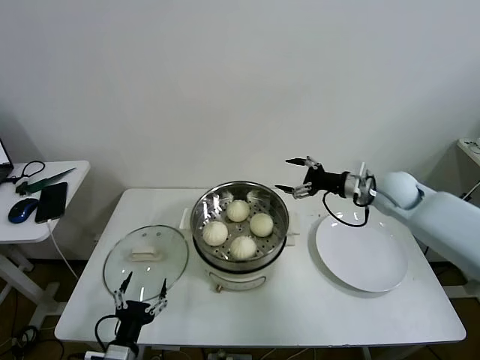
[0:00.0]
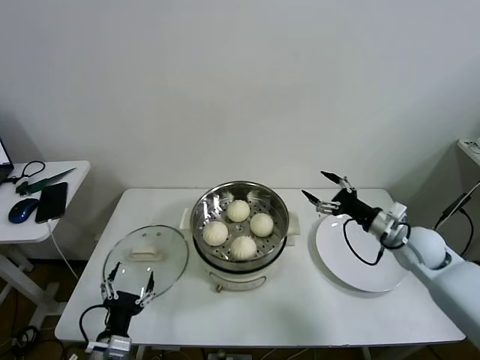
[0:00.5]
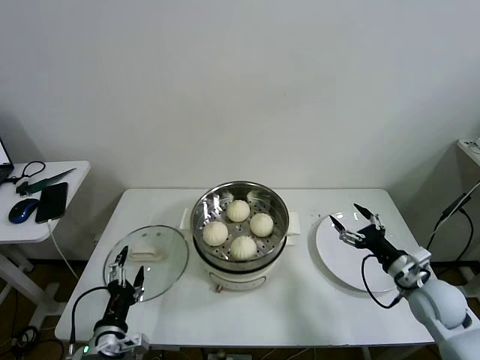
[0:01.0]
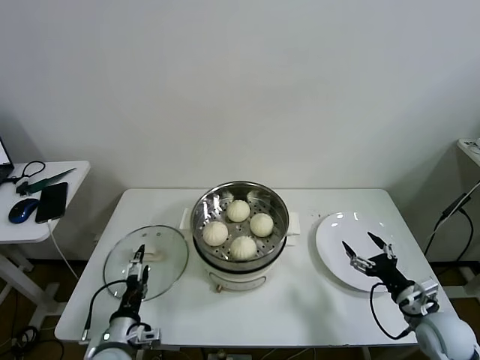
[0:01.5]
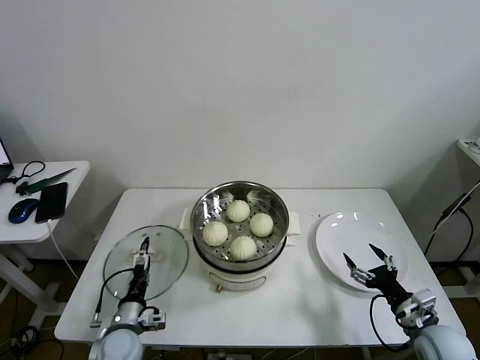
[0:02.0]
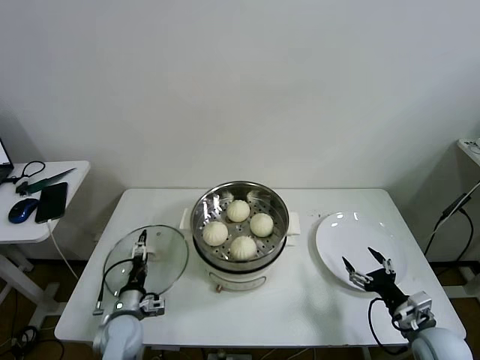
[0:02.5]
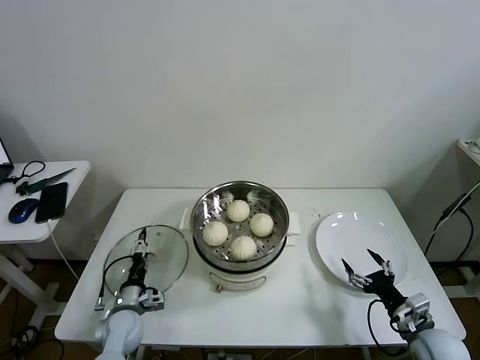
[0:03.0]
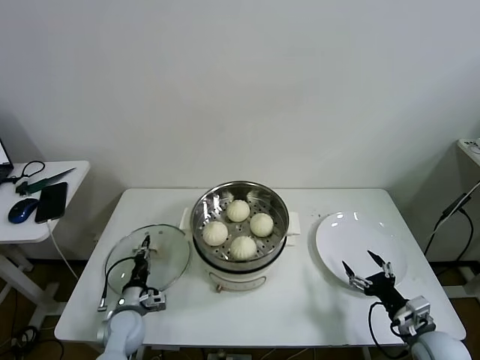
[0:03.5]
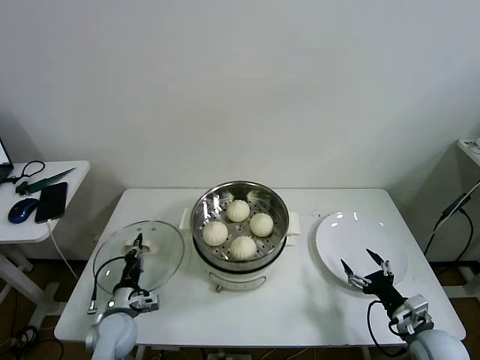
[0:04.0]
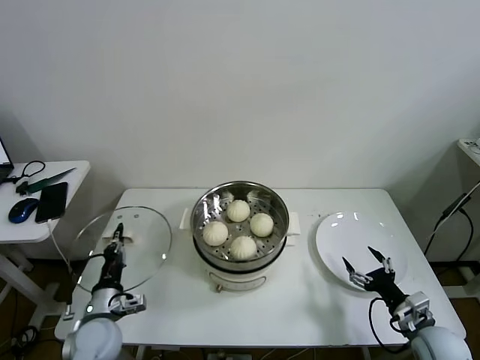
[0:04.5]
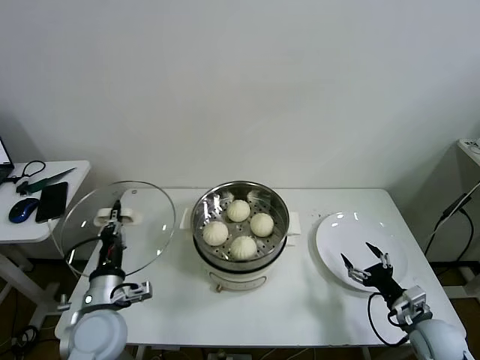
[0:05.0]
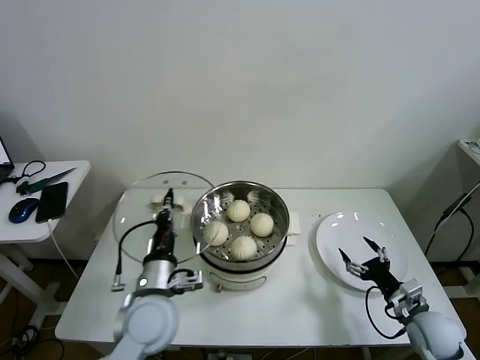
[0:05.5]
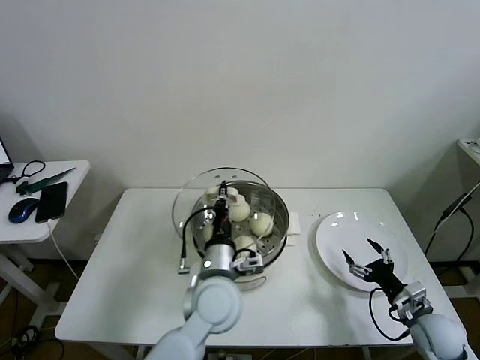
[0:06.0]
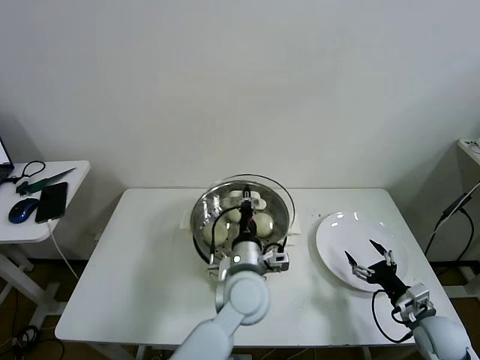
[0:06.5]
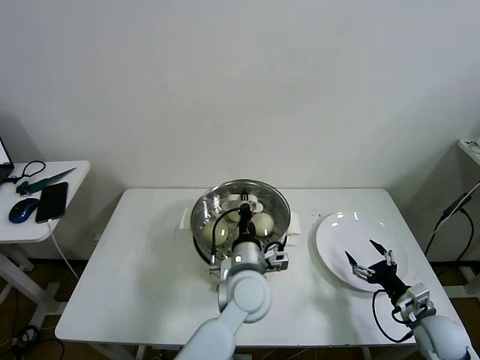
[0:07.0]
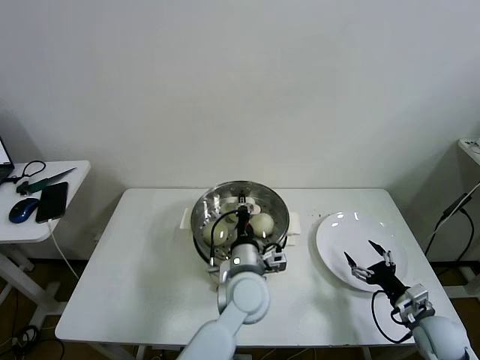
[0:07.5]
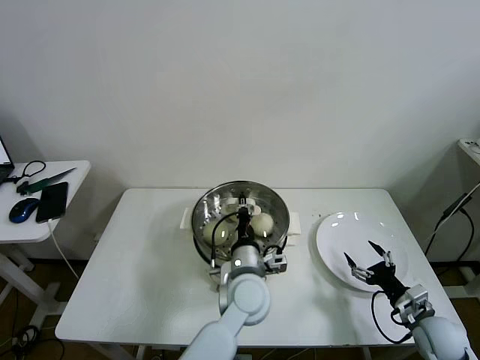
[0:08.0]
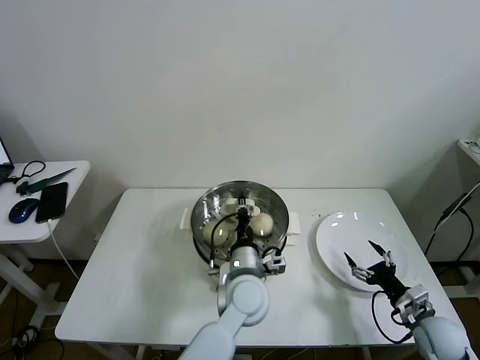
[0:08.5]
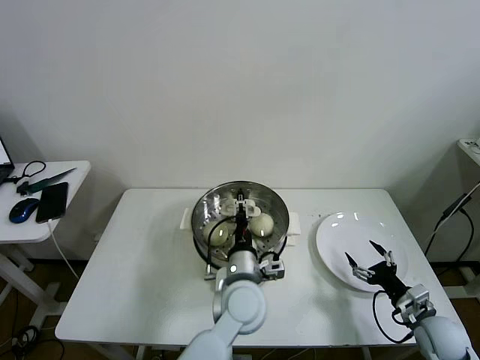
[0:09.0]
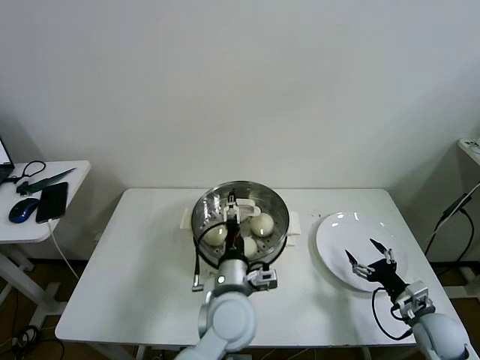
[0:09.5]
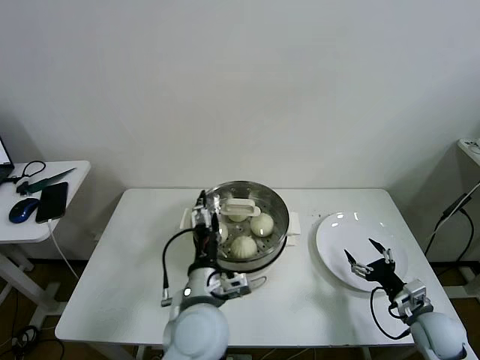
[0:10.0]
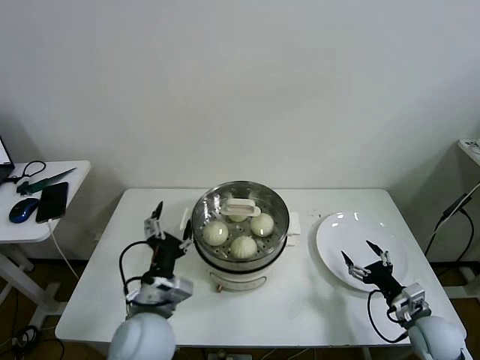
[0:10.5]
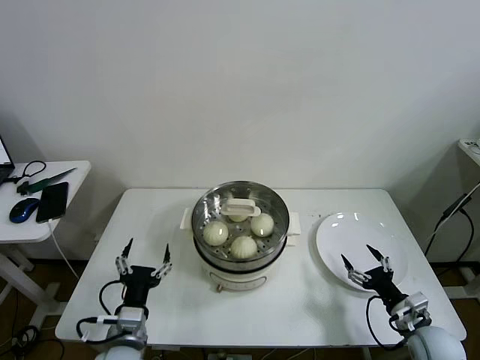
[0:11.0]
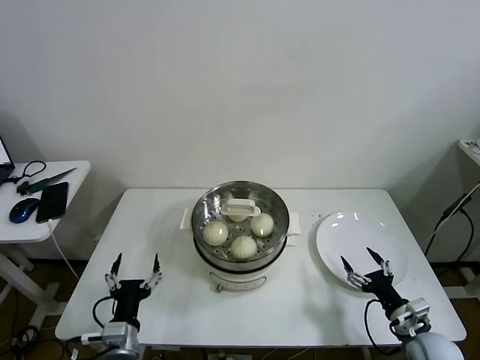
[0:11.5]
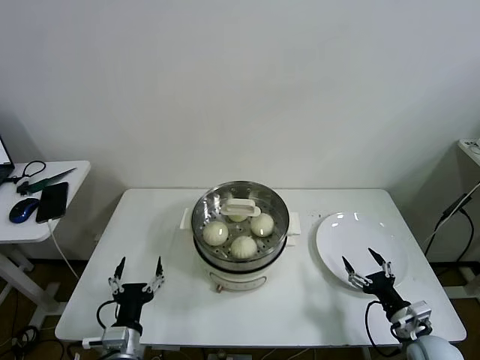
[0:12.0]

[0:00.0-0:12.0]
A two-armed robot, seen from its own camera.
Task of the whole recording: take steamed baozi put them in steamer then cover it.
Step, 0:00.0 to 0:03.5: Grasp the pot lid with left gripper.
Step, 0:04.0 to 0:08.5: Place the pot lid on the steamer with left gripper.
0:00.0 to 0:02.0: The right gripper moves backward and downward, roughly 30 cm, while the left gripper travels forward by some 10 cm.
0:02.0 to 0:04.0: The left gripper moves approximately 5 cm, and closes.
0:04.0 to 0:06.0: The left gripper heads to the right and upward, covering some 30 cm.
0:06.0 to 0:08.0: The left gripper moves to the right, about 5 cm.
0:08.0 to 0:10.0: The left gripper shifts approximately 10 cm backward and to the left, and opens up.
0:10.0 to 0:12.0: The right gripper shifts by about 5 cm, while the left gripper goes some 25 cm to the left, downward and backward.
